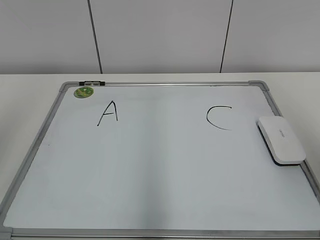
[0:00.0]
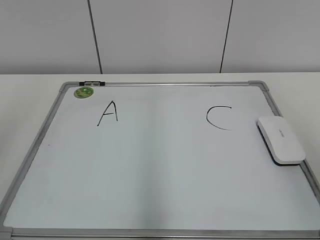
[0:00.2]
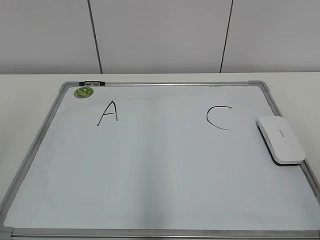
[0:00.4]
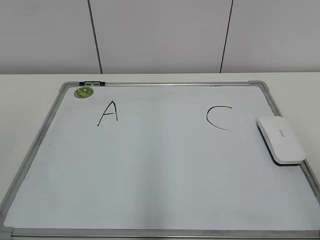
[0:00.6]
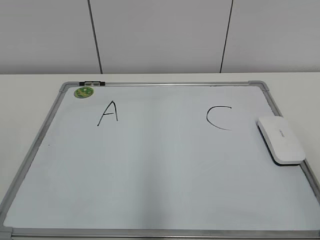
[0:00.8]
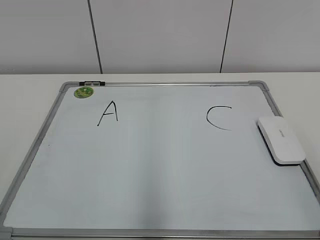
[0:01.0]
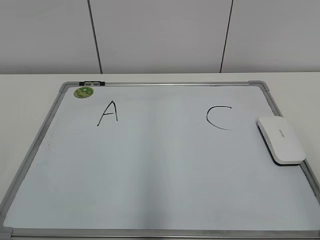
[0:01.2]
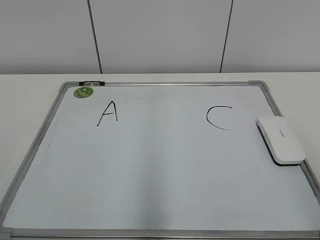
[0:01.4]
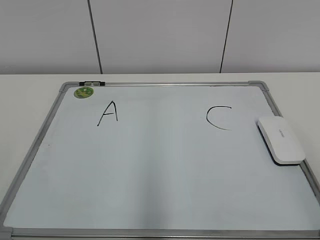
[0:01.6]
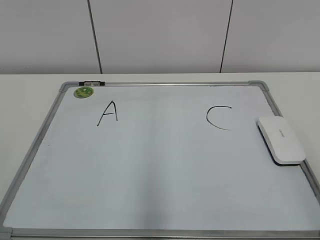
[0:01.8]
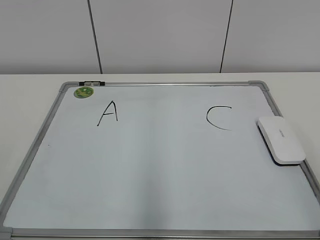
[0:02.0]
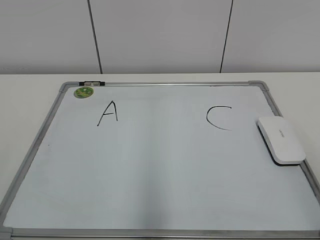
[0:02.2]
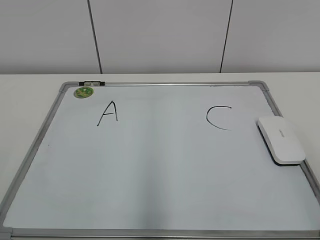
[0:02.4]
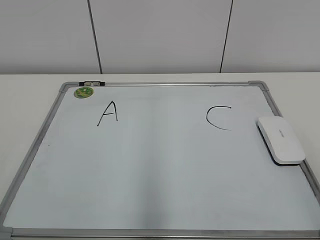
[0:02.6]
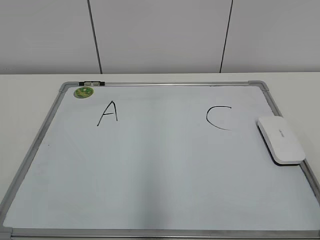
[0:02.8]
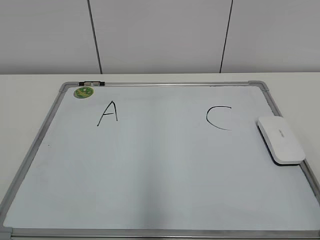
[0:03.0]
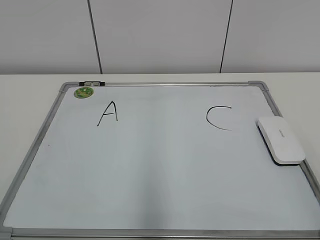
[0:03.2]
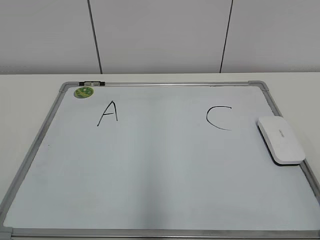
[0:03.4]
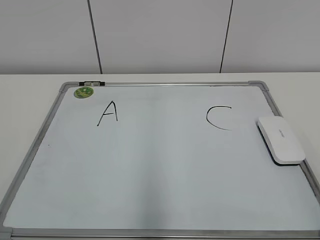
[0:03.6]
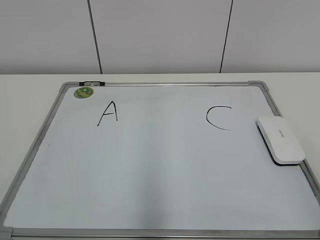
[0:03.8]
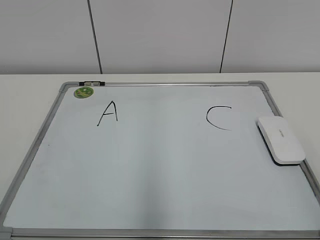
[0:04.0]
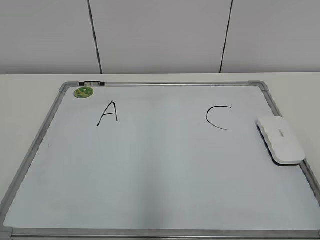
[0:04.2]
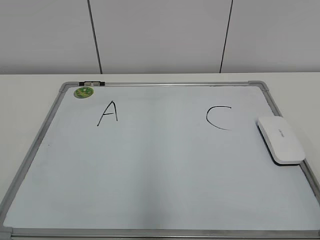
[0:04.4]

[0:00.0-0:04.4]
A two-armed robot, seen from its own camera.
Task of the whole recording: pick up the eraser on the blackboard and erase the letter "B".
0:03.0 to 0:04.4: Both grippers stay about where they are.

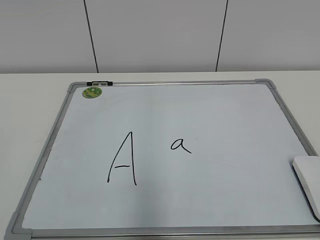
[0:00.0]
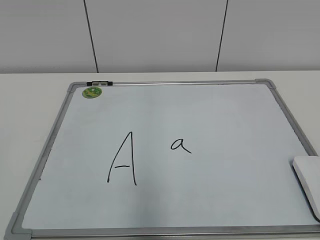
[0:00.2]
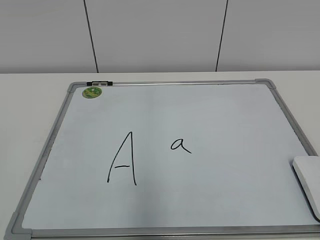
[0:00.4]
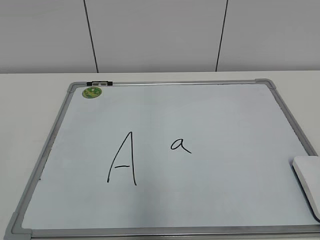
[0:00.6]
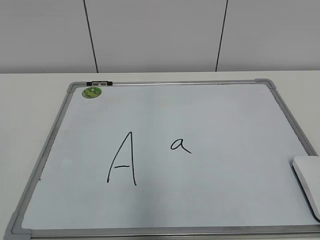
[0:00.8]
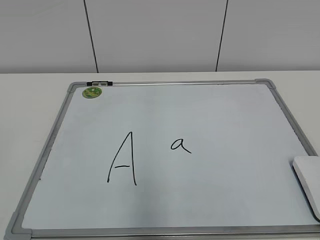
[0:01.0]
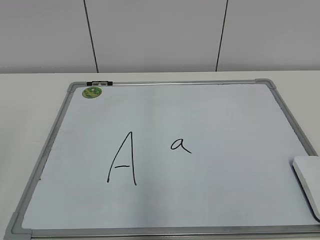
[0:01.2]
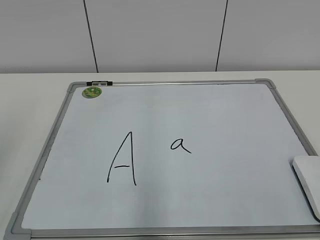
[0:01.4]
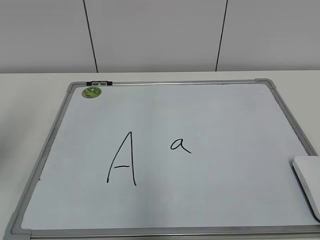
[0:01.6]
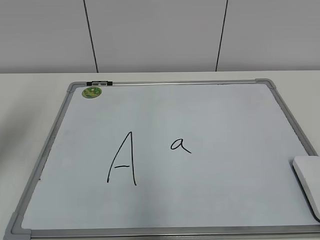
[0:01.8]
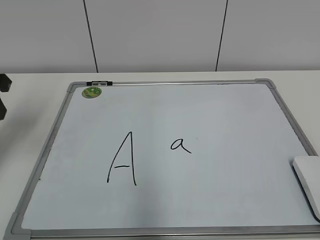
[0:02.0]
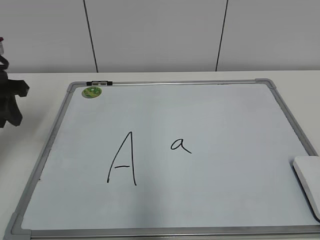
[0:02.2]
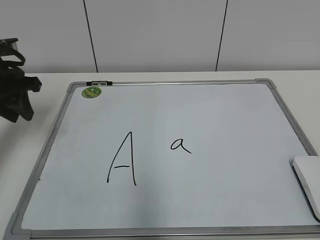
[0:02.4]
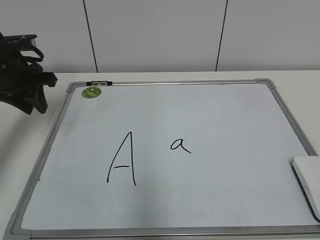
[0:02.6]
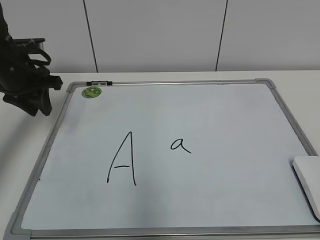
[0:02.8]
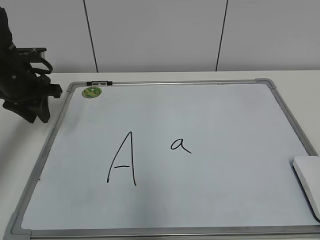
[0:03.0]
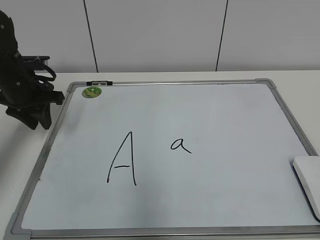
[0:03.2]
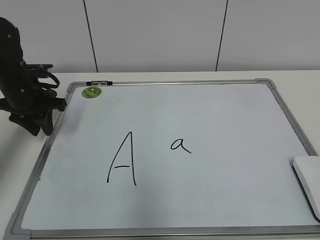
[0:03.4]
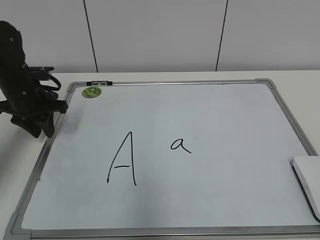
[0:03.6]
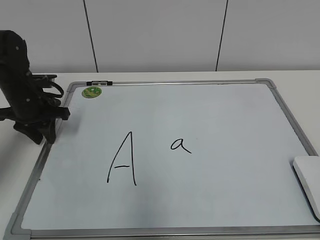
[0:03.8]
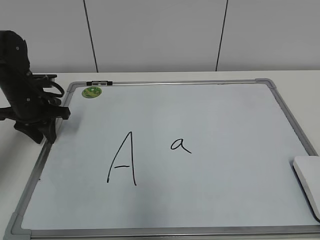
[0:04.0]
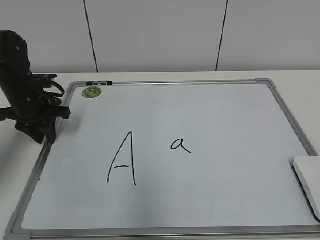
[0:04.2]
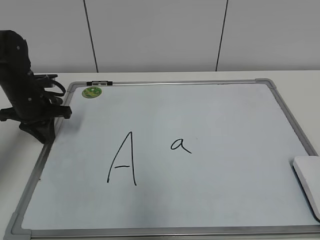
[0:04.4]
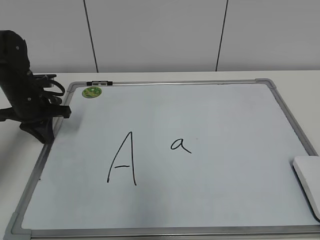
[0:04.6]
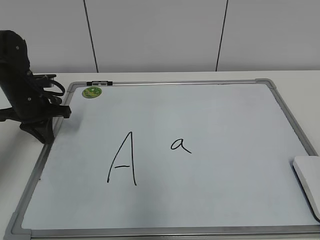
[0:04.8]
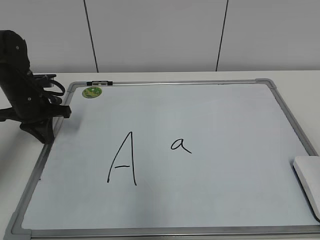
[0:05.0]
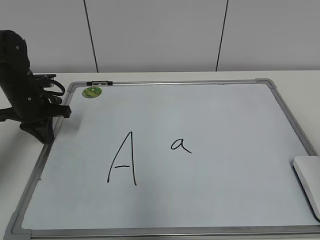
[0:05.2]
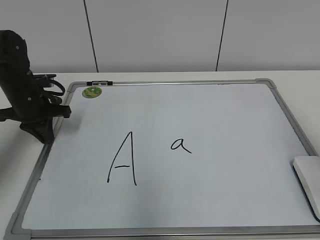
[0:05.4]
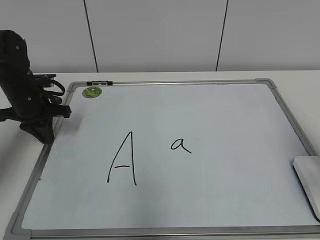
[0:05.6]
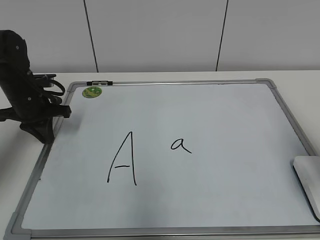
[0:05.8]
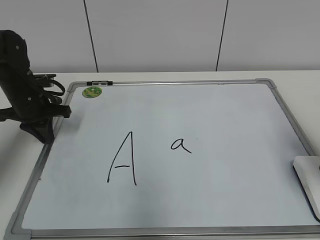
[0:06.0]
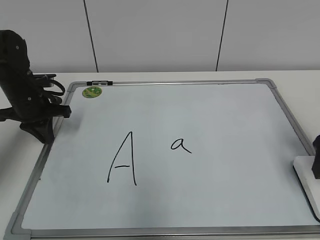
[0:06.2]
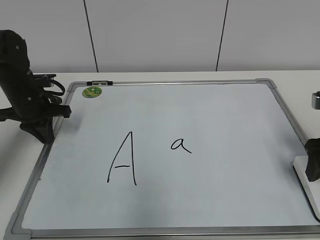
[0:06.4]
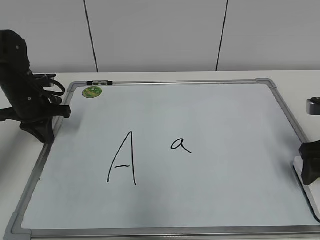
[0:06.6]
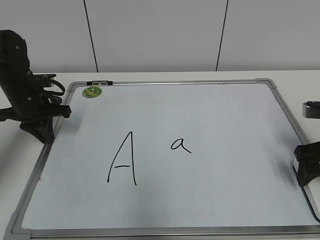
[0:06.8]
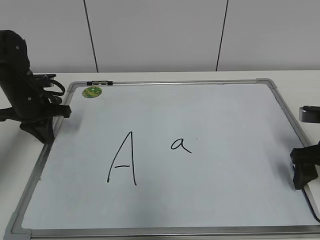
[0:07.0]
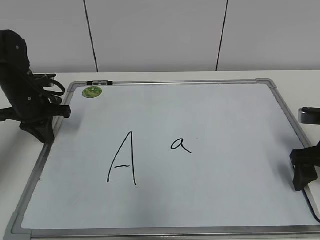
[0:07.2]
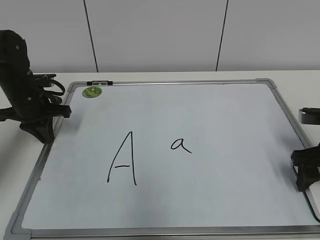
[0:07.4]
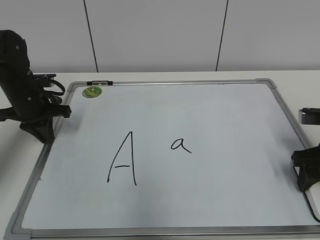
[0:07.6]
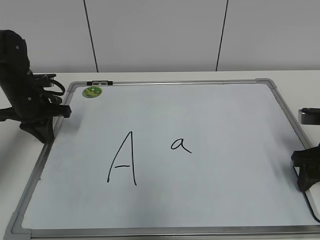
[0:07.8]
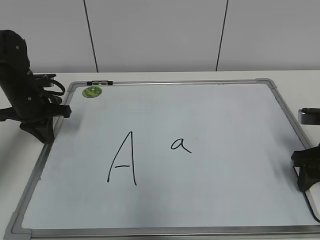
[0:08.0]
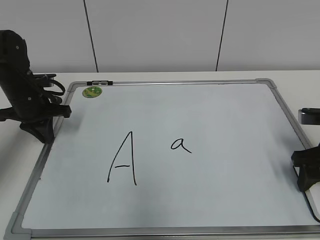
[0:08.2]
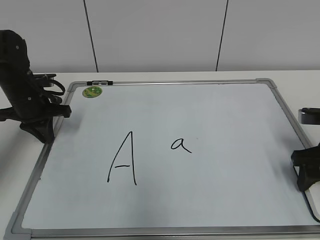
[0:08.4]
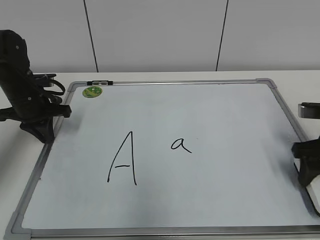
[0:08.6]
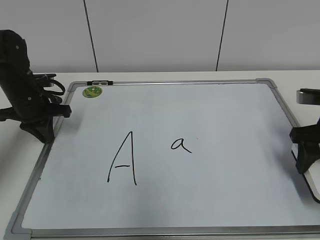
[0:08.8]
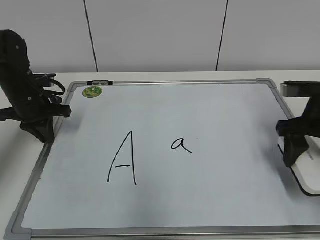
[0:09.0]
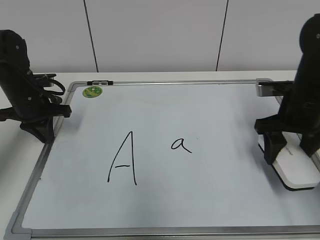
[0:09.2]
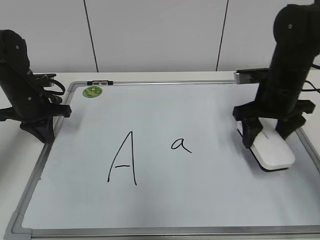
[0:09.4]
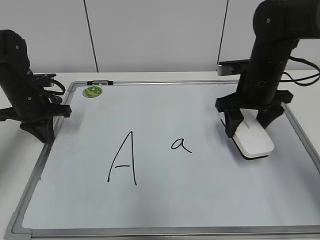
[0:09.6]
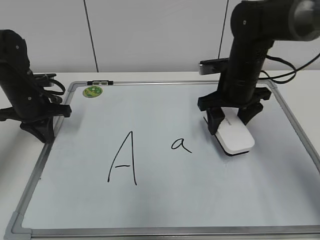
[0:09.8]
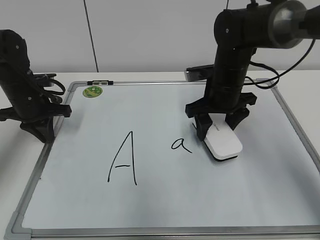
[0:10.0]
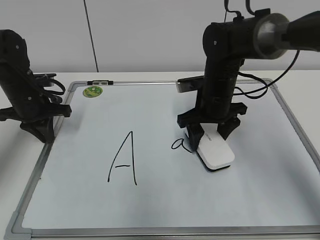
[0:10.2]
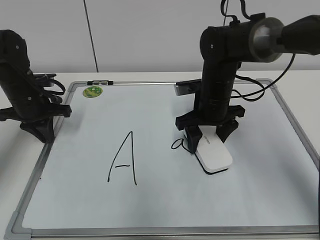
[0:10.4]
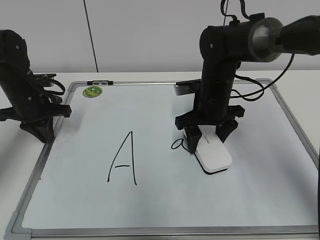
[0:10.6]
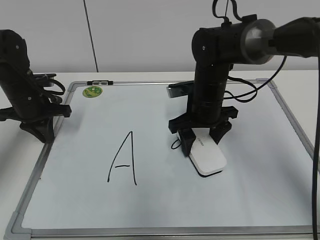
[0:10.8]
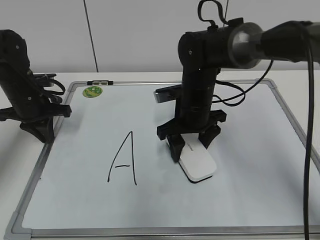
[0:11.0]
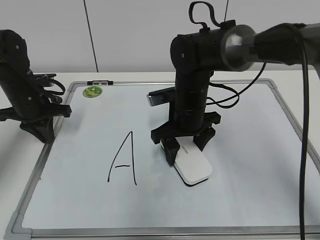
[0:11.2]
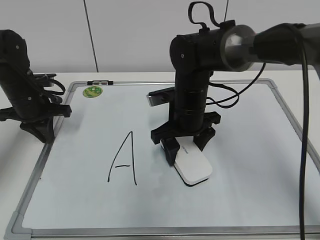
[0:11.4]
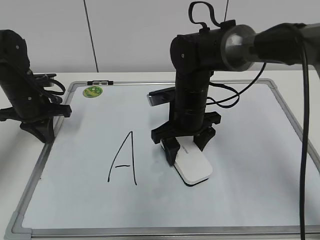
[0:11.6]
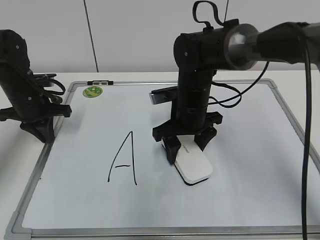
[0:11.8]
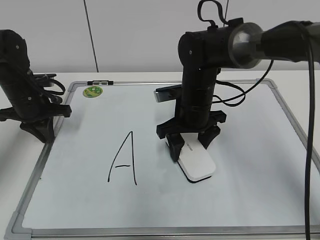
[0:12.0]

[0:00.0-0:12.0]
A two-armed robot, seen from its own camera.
Task of the whole recording: pick up the eraser on the blackboard and erase the letter "a".
Step, 0:00.0 to 0:04.6: Hold the drawing board steady with your left hand.
0:01.6 to 0:03.0: The left gripper travels forward and downward by approximately 25 cm.
0:03.0 to 0:04.4: The left gripper is displaced downward by about 5 cm.
0:04.4 to 0:06.0: The right gripper is displaced forward by approximately 25 cm, and opens.
0:06.0 to 0:07.6: The right gripper travels downward by roughly 10 cm, and closes.
0:07.6 to 0:09.0: The right gripper changes place by about 5 cm.
0:09.0 to 0:10.4: The right gripper is displaced to the left and forward by approximately 20 cm.
0:10.4 to 0:12.0: The grippers make only small movements.

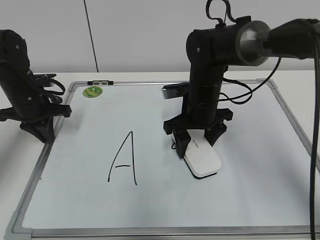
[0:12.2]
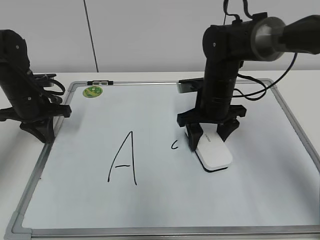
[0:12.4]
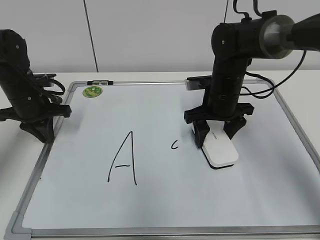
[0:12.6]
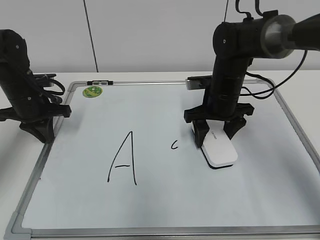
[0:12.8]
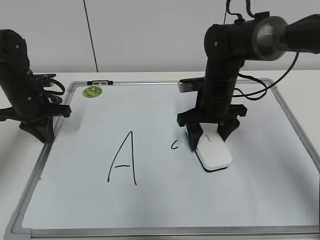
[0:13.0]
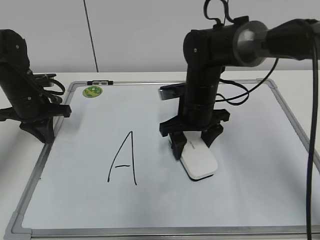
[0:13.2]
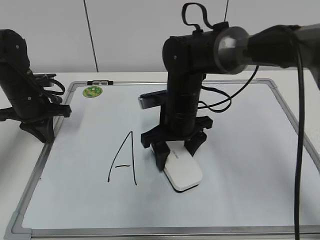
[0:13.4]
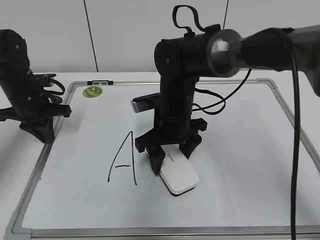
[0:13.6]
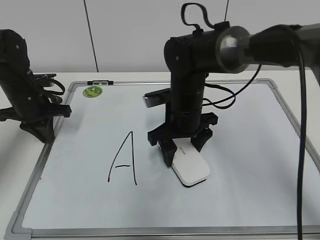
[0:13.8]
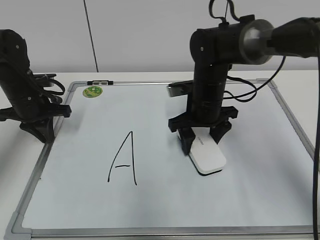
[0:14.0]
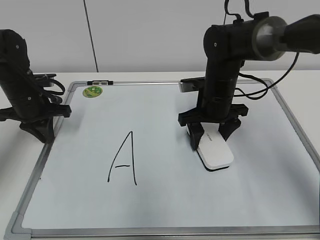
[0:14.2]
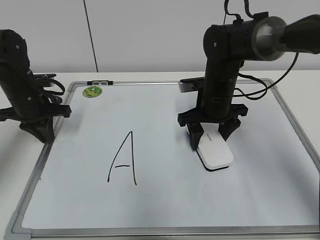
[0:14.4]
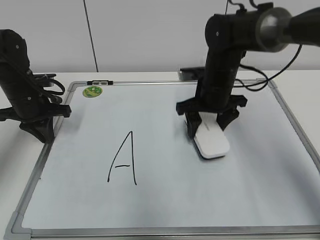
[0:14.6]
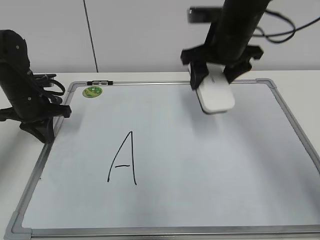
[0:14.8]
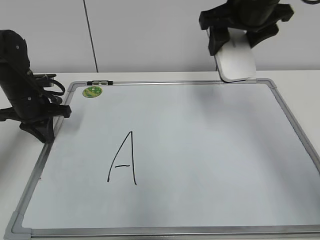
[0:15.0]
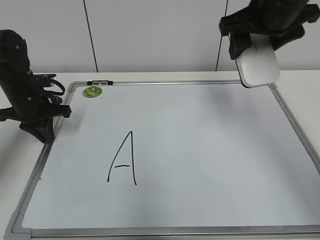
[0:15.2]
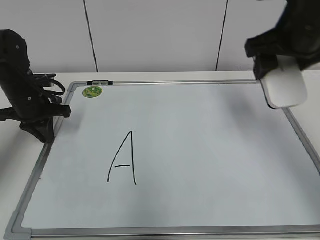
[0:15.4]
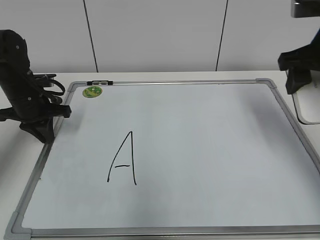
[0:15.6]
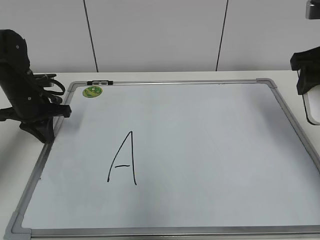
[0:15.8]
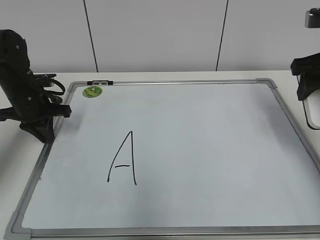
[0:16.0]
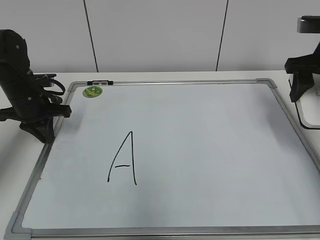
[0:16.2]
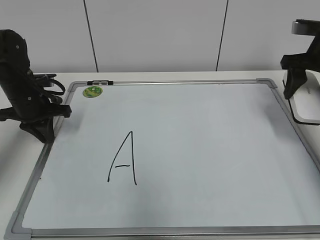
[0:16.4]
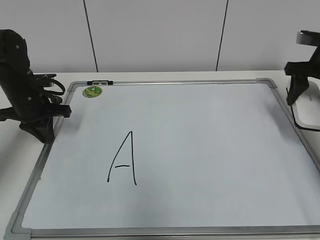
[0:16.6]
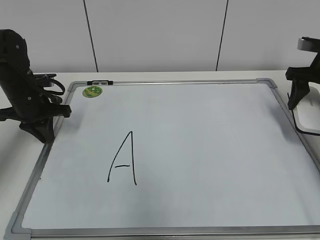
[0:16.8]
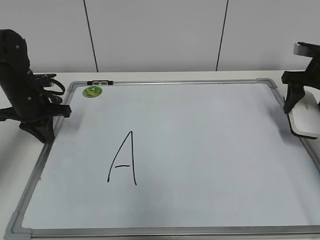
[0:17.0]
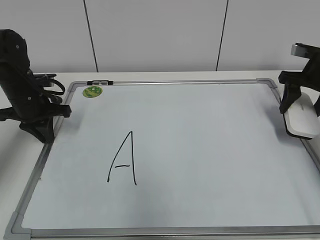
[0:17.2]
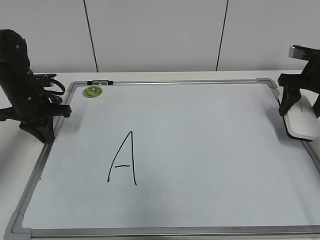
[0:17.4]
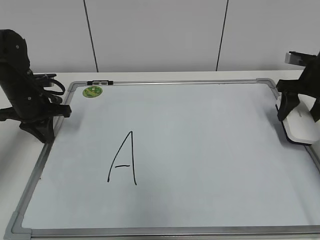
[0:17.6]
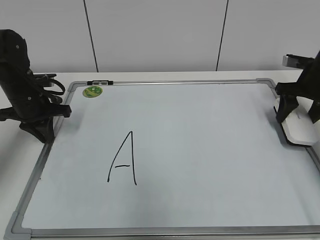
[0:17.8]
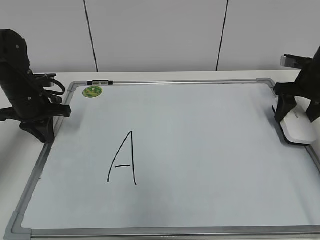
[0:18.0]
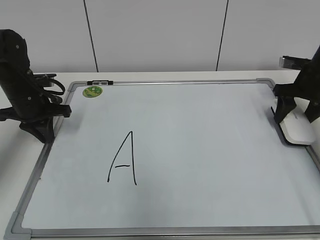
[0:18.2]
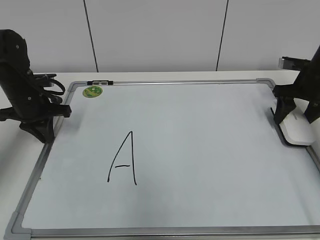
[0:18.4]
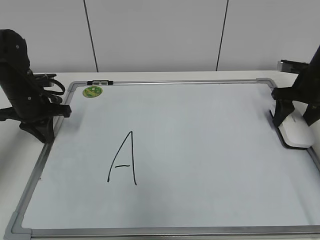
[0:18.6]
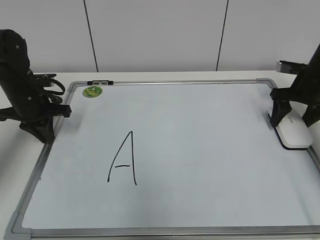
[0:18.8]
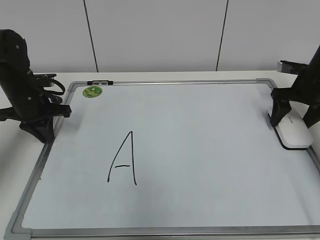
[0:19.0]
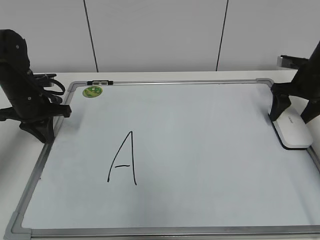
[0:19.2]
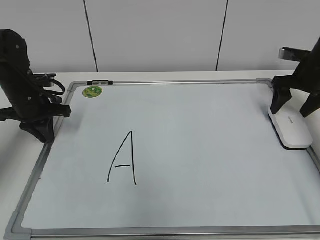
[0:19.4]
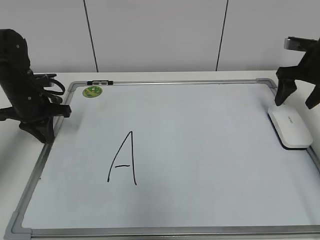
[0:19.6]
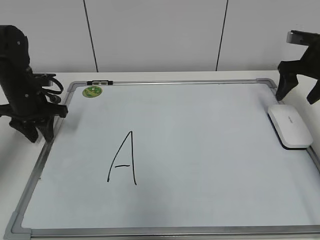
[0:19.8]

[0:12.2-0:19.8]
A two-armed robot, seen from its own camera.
Task of the whole recording: pick up the eraser on the blackboard and erase the letter "a".
Step, 0:12.2 to 0:14.2: Erase the letter a with your right hand.
Step, 0:14.4 to 0:19.0: Put down the eraser with your right hand.
0:13.8 to 0:15.2: The right gripper goes about 20 cm upward and to the right.
0:15.2 to 0:16.8: The right gripper goes some 20 cm to the right and downward.
0:16.8 to 0:18.2: The right gripper moves about 5 cm.
0:18.2 to 0:19.8: The right gripper opens up.
